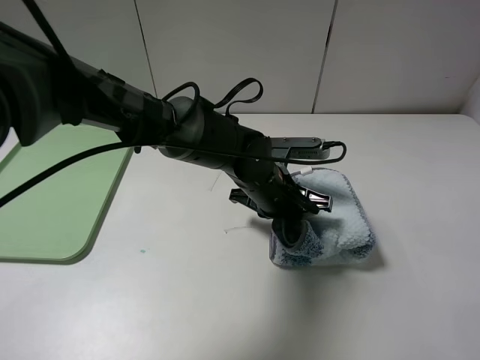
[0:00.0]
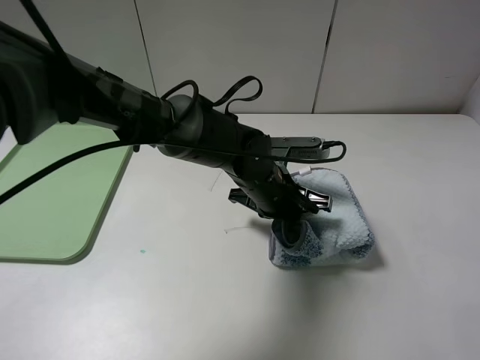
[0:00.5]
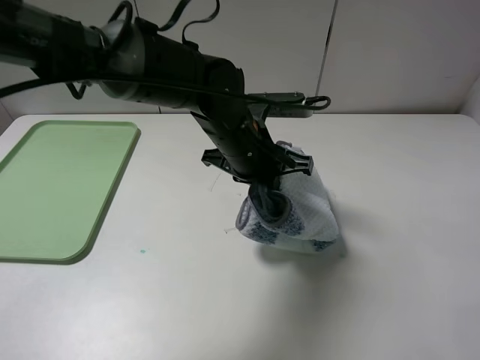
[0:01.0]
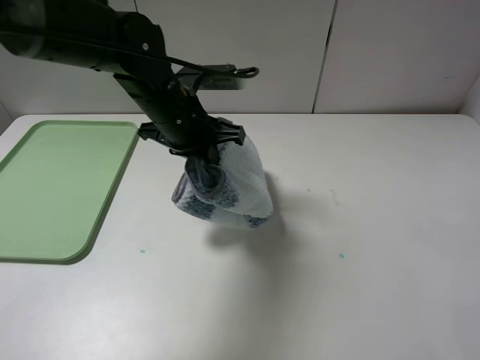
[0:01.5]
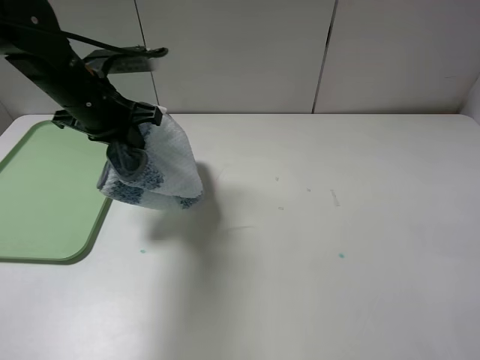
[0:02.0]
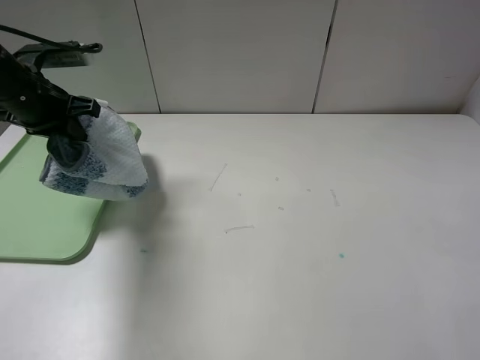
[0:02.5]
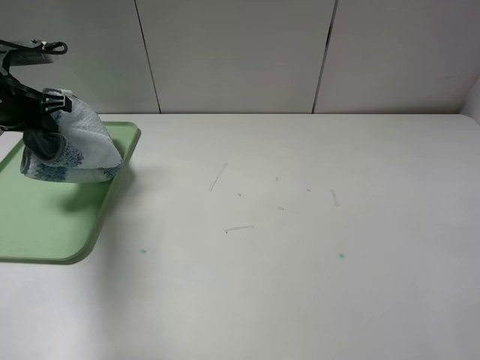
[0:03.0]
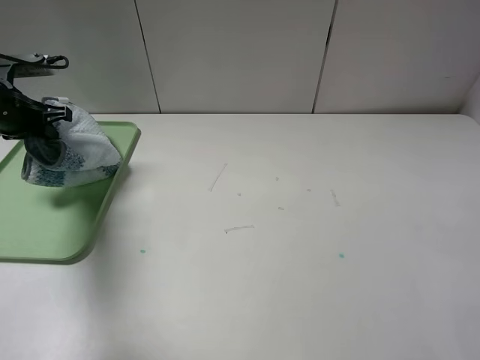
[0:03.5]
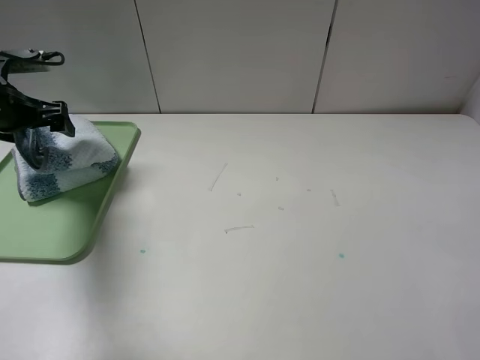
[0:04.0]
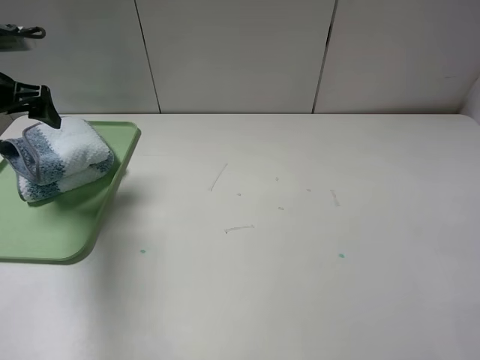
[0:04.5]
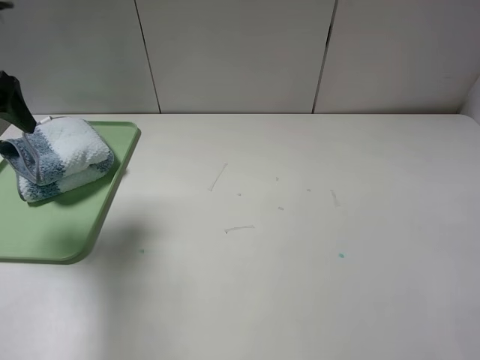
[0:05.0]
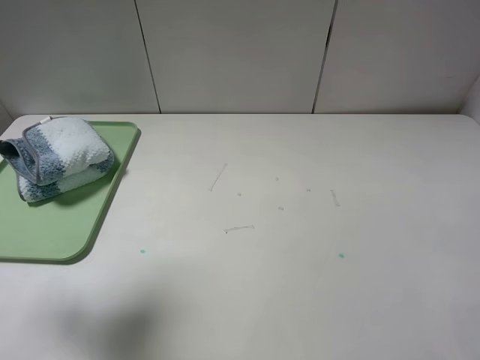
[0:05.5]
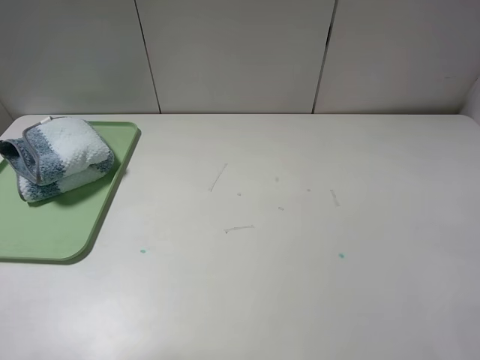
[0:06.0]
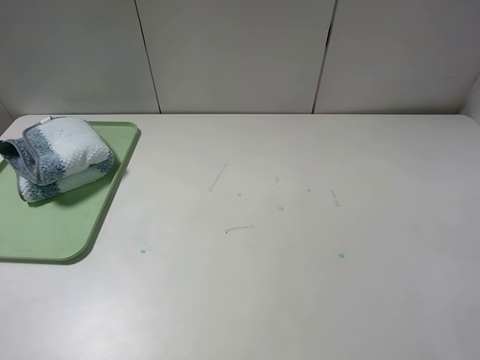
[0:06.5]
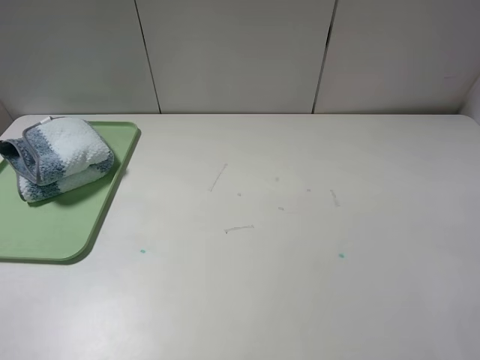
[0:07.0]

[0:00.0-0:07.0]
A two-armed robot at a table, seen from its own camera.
0:00.0 to 0:02.0: The left gripper heads to the left and upward, covering roughly 30 cm.
0:02.0 to 0:03.5: The left gripper moves to the left, approximately 15 cm.
0:03.5 to 0:05.0: The left gripper heads upward and backward, covering about 15 cm, and opens up.
0:05.0 to 0:07.0: The left gripper heads backward, covering roughly 30 cm.
